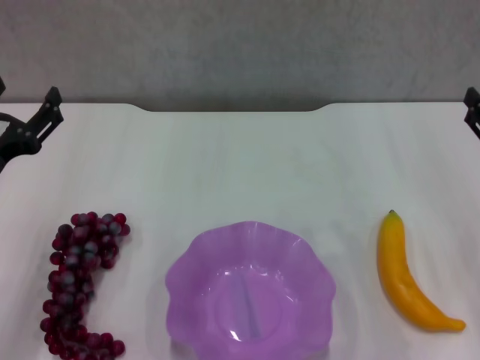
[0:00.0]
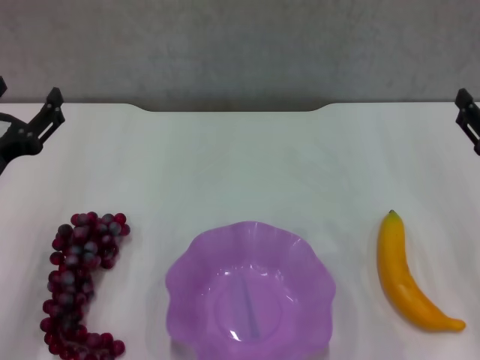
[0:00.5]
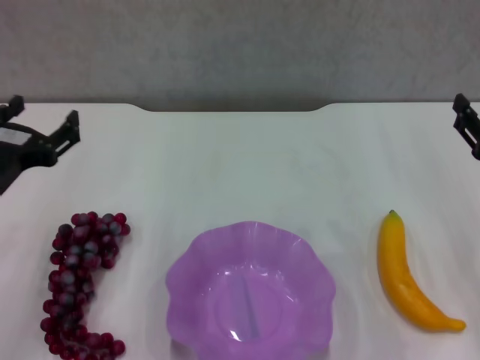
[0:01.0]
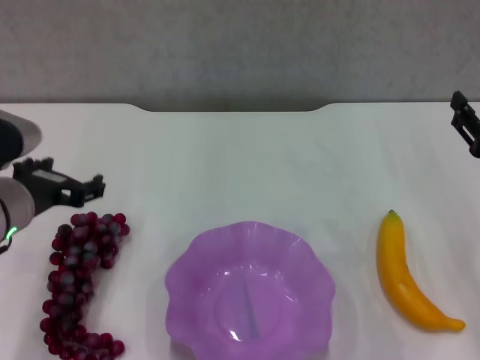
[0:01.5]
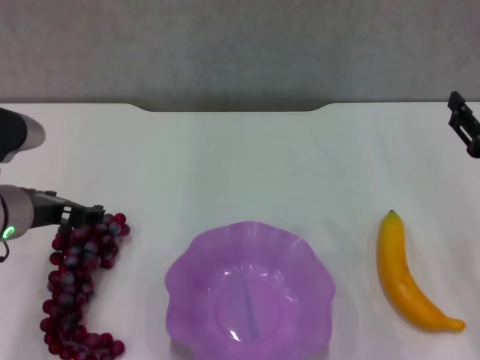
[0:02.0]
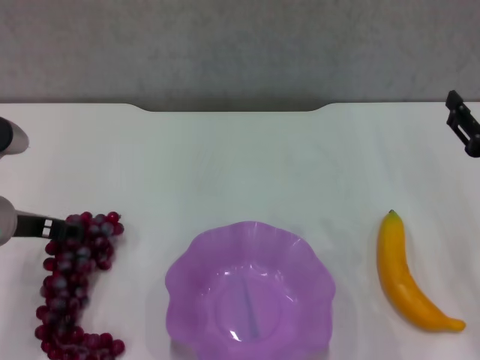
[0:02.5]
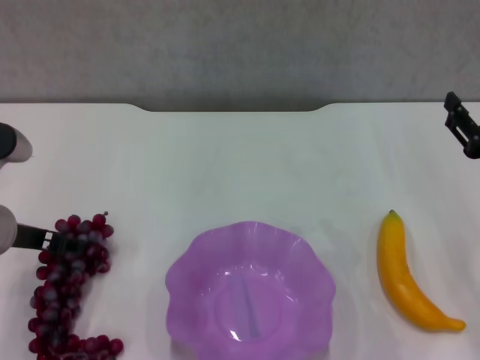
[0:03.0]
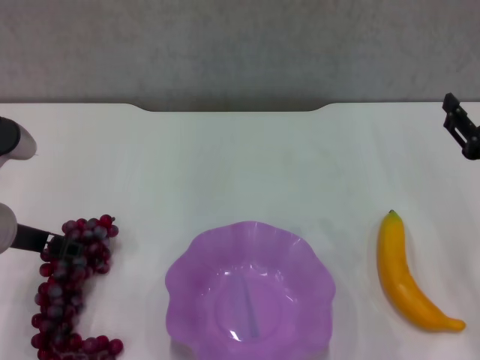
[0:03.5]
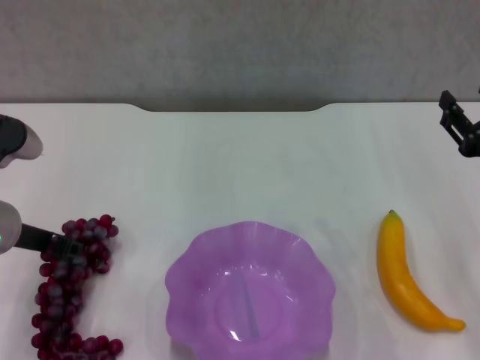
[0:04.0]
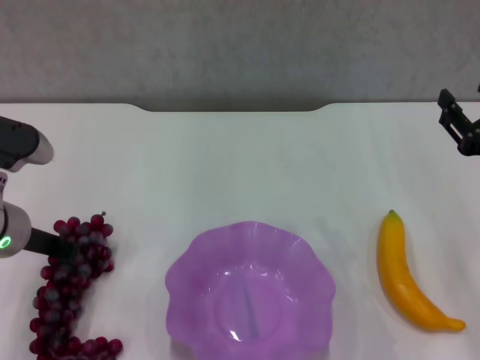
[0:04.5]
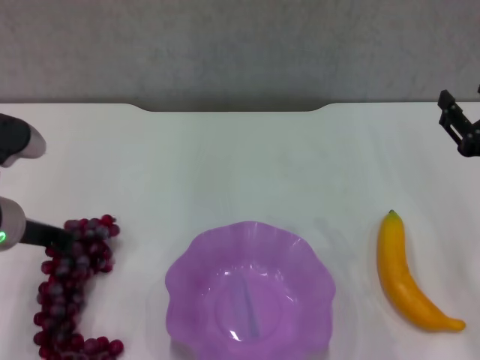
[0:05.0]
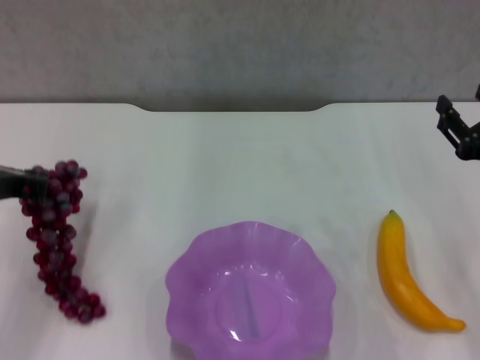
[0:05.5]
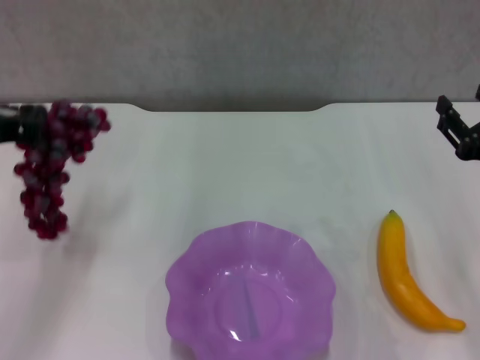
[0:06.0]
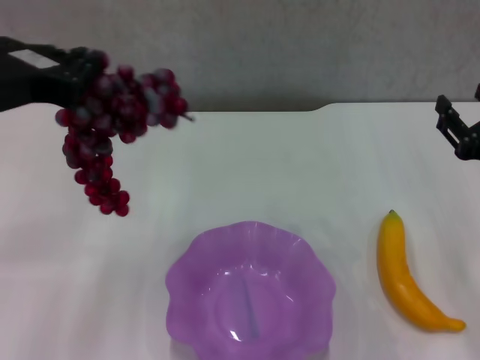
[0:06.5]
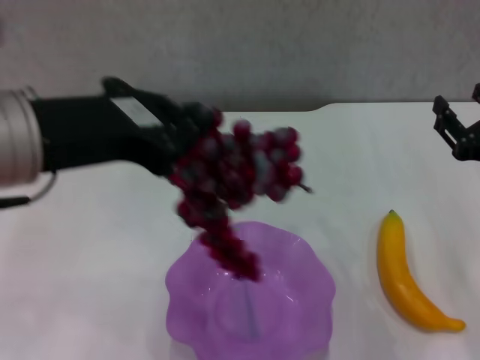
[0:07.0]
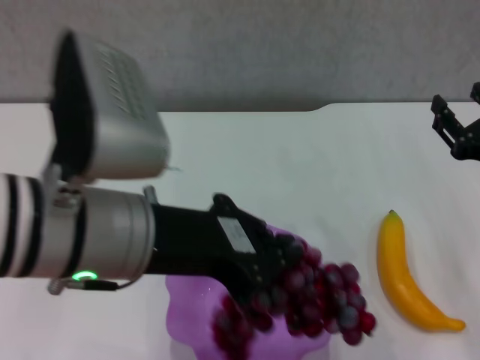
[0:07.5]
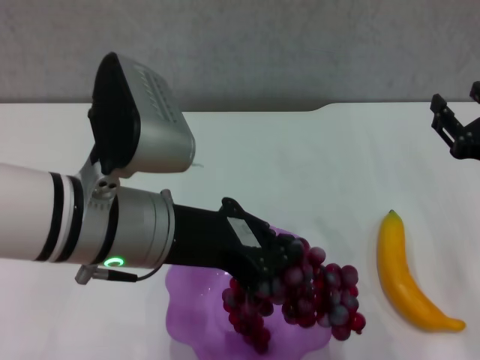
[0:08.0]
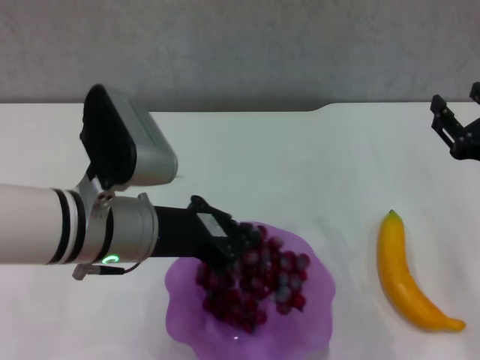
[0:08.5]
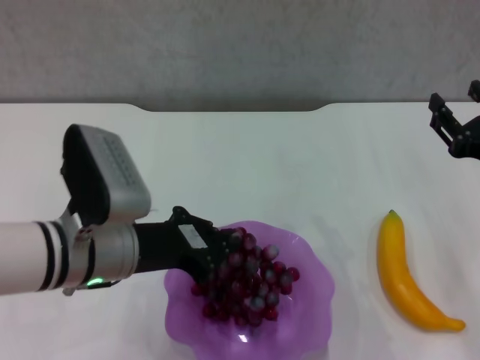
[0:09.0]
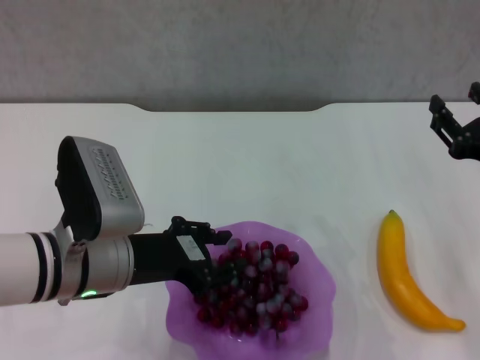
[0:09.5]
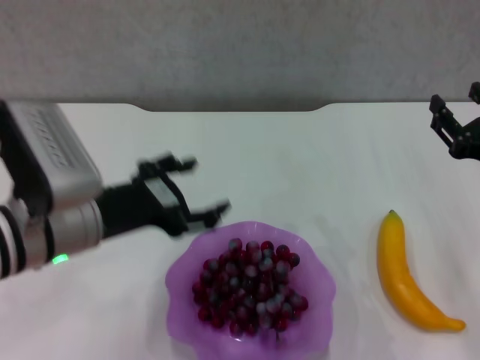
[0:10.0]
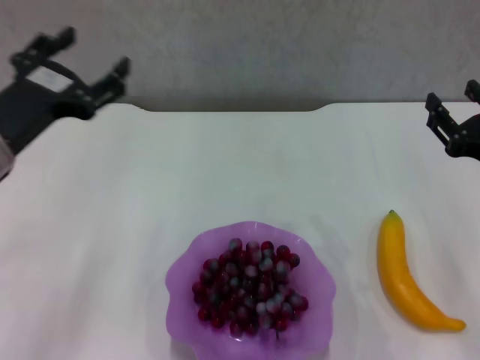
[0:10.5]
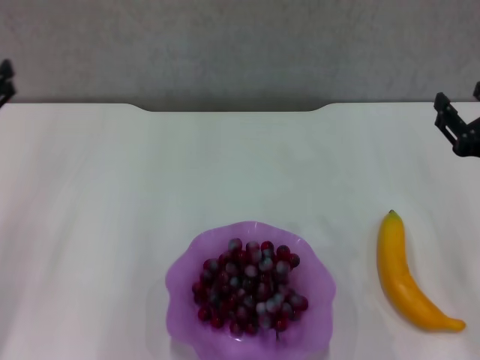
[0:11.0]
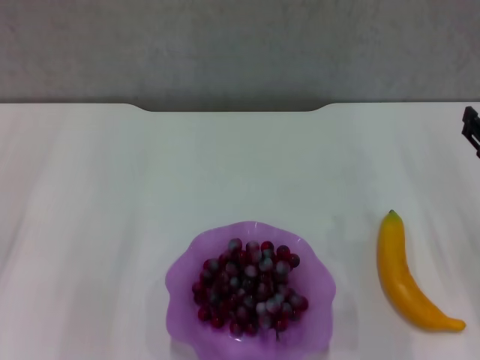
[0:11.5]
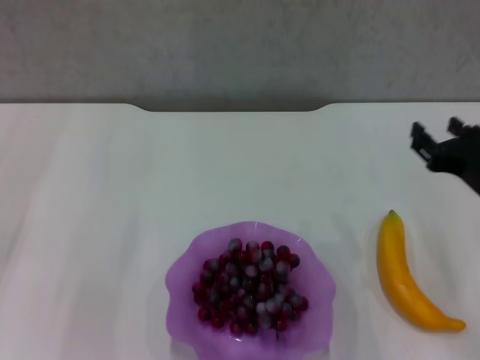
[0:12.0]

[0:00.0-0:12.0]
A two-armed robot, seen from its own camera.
Step, 0:00.0 to 0:04.5: Grasp the grape with left gripper.
Step, 0:05.0 to 0:09.5: Place the grape in the purple plate with left gripper.
0:00.0 to 0:02.0: The left gripper changes place by some 5 cm.
0:02.0 to 0:04.0: The grippers make only small movements.
0:04.0 to 0:06.0: The left gripper travels upward by about 10 cm, and closes.
0:06.0 to 0:08.0: The left gripper is displaced to the right by roughly 15 cm.
0:08.0 to 0:10.0: The left gripper moves to the left and downward, approximately 10 cm, and opens up.
0:10.0 to 0:12.0: The left gripper moves to the left, roughly 15 cm.

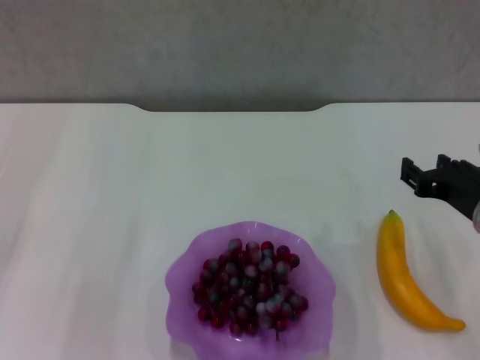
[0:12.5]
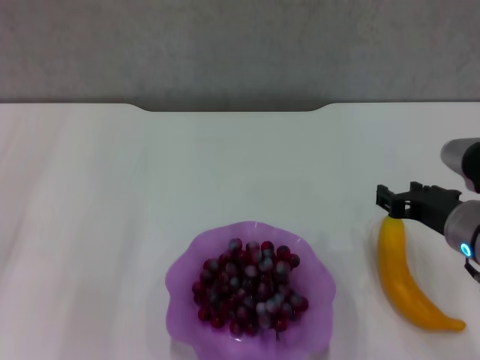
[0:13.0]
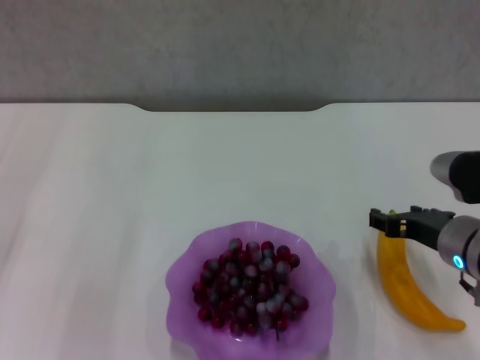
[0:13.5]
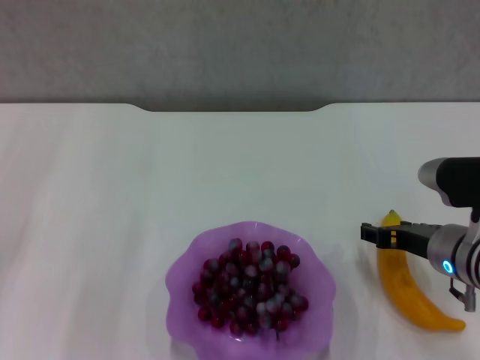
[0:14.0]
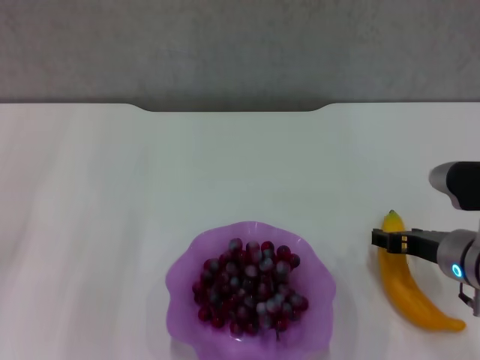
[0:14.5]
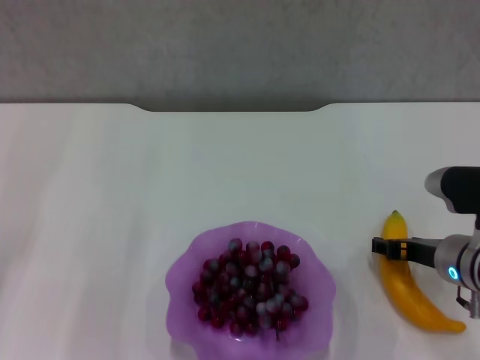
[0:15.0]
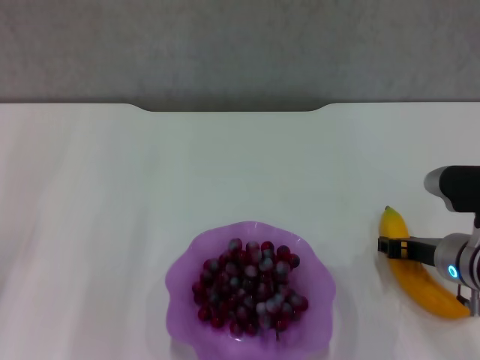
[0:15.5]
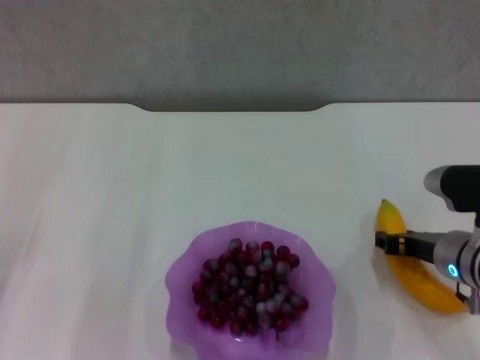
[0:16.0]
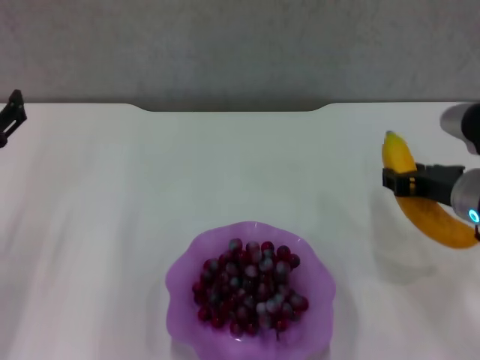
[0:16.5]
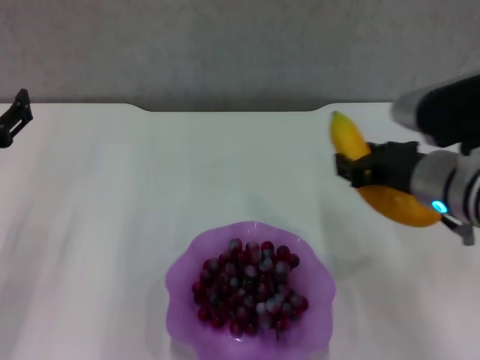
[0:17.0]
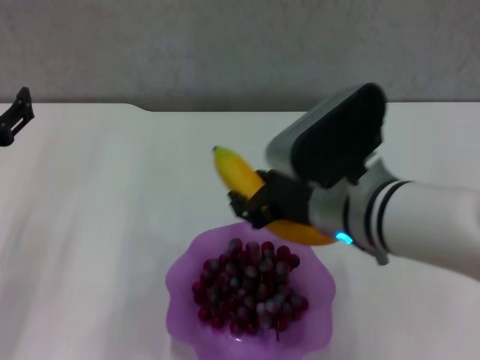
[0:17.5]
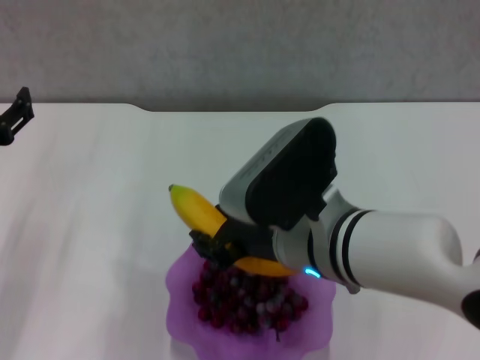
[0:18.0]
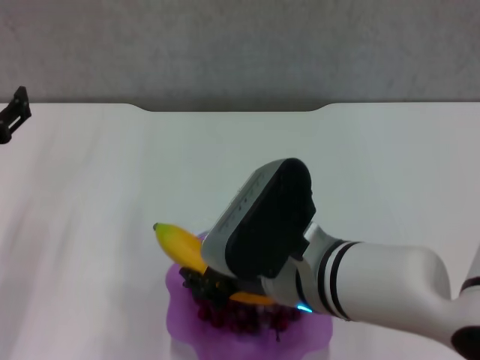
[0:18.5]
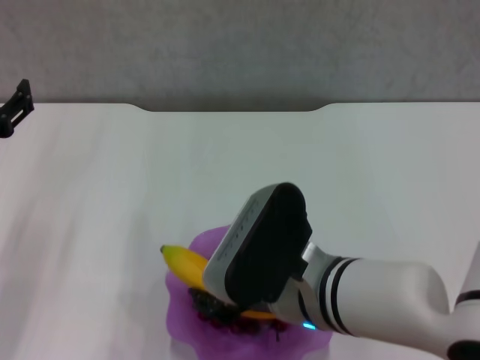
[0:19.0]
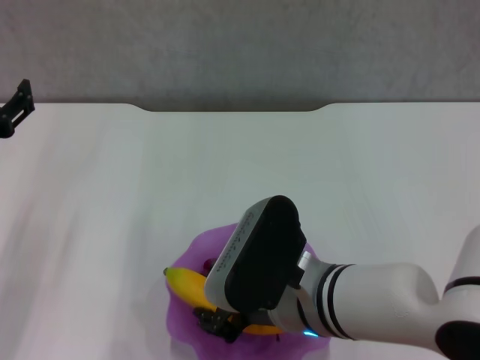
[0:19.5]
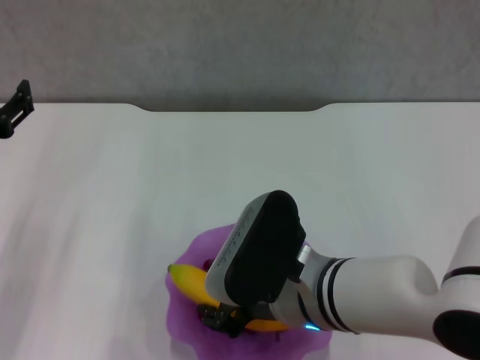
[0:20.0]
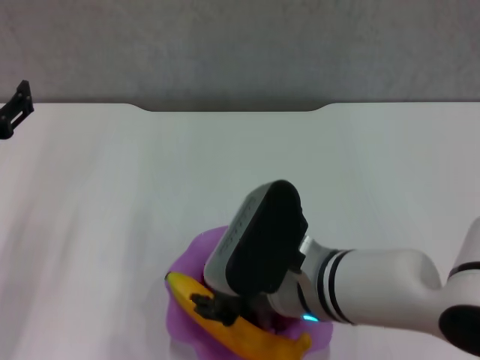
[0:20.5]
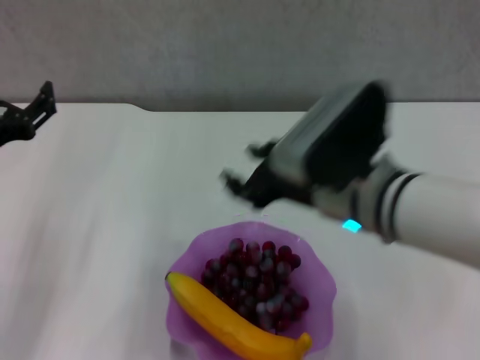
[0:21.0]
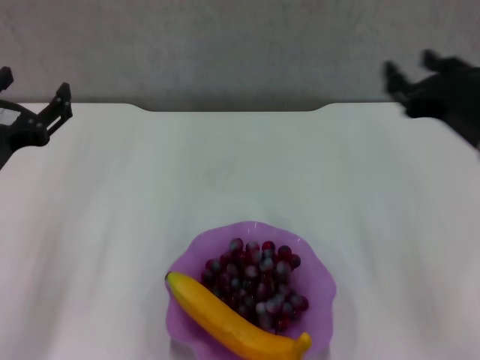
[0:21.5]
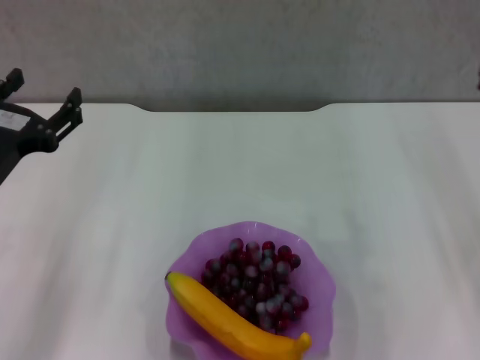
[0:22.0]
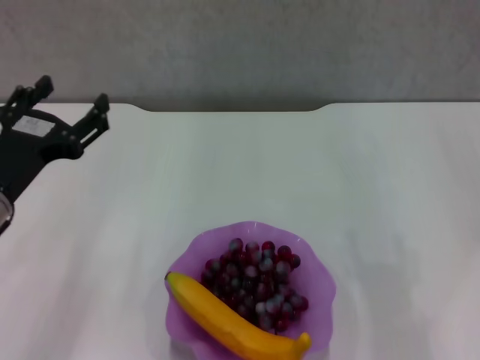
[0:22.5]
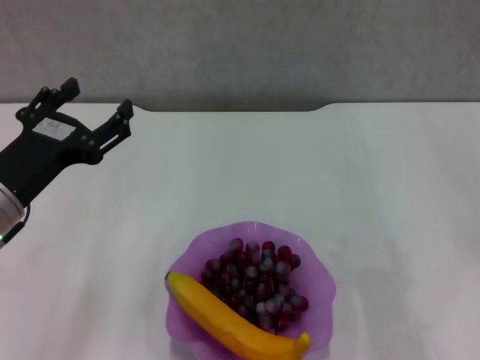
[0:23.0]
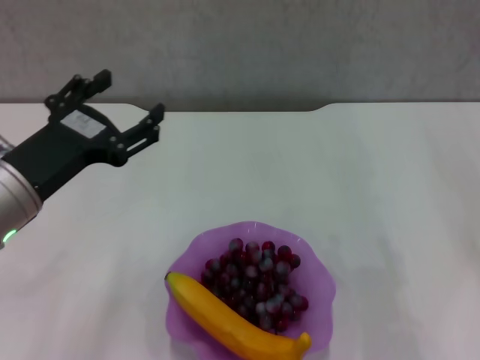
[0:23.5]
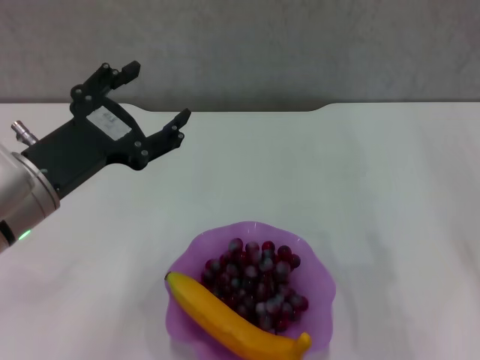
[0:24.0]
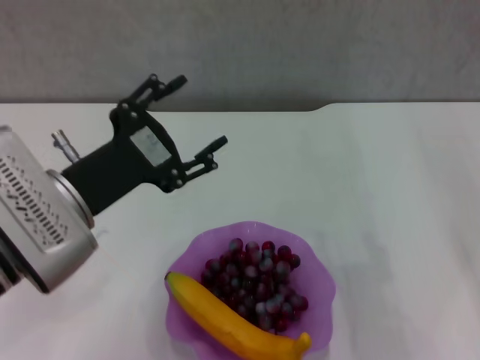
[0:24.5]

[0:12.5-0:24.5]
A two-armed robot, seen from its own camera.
Step, 0:12.5 to 0:15.5: Grasp the banana with right gripper.
Step, 0:16.0 to 0:20.5: Place the banana in the purple plate with right gripper.
0:12.5 to 0:14.5: The right gripper opens up.
0:14.5 to 0:16.5: The right gripper travels upward by roughly 5 cm, and closes its fingers.
0:16.5 to 0:18.5: The right gripper heads to the left and backward, covering some 20 cm.
0:18.5 to 0:20.5: There are only small adjustments of the grippers.
0:20.5 to 0:22.5: The right gripper is displaced to the right by roughly 25 cm, and opens its fingers; the left gripper shifts by approximately 5 cm.
0:22.5 to 0:24.5: The left gripper is displaced to the right by roughly 5 cm.

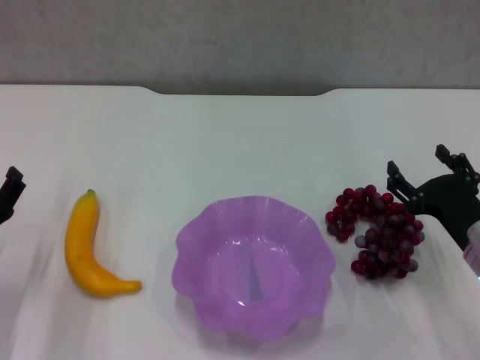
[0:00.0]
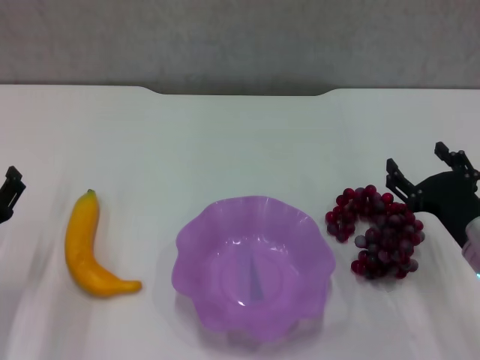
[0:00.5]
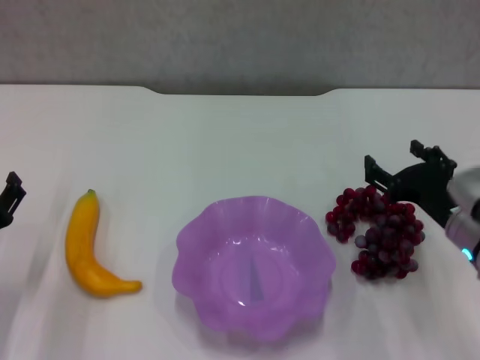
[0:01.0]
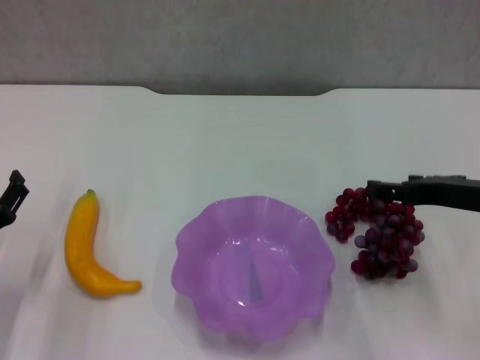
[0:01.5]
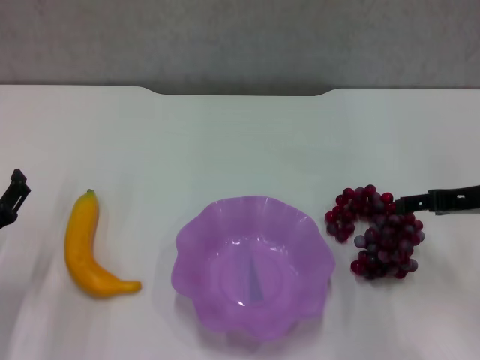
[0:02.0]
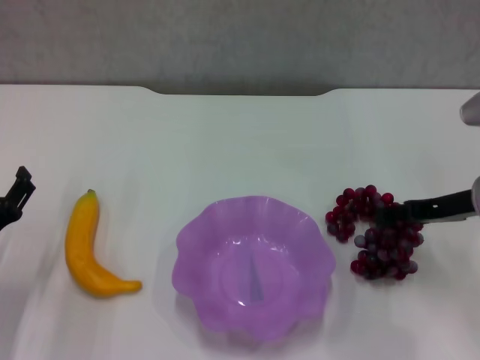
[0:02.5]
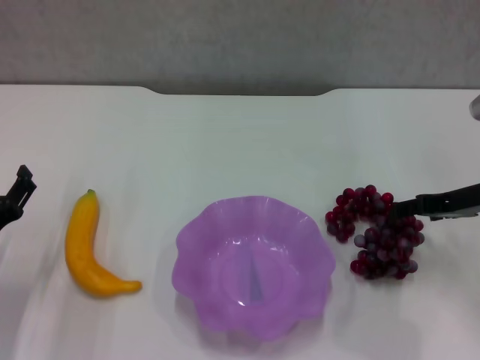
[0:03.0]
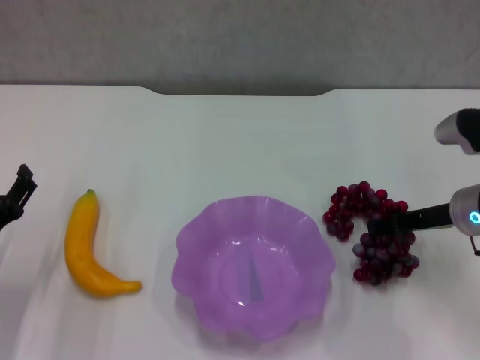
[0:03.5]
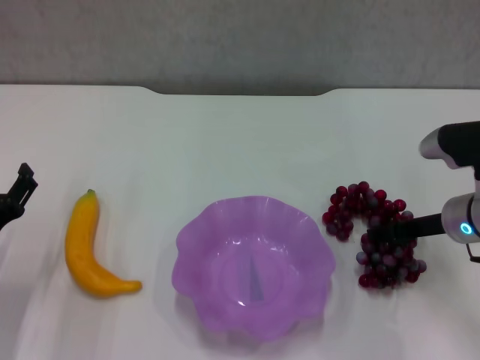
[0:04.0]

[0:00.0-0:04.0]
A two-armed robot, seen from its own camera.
0:00.0 to 0:02.0: The right gripper goes about 10 cm upward and forward.
0:02.0 to 0:04.0: The right gripper heads downward, covering roughly 5 cm.
